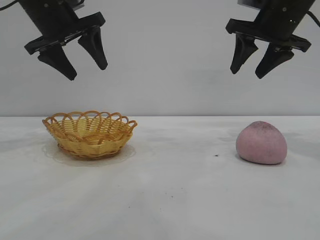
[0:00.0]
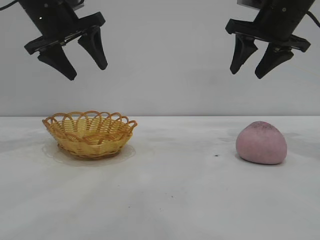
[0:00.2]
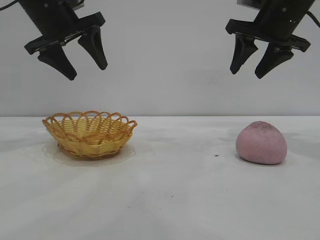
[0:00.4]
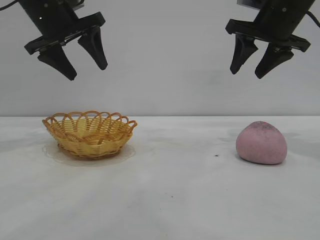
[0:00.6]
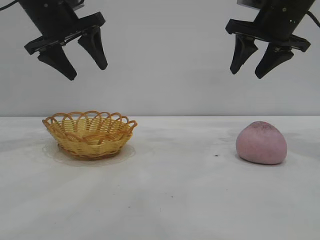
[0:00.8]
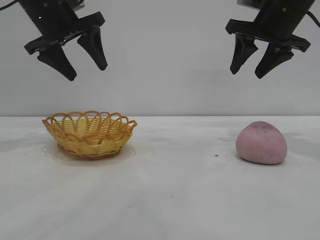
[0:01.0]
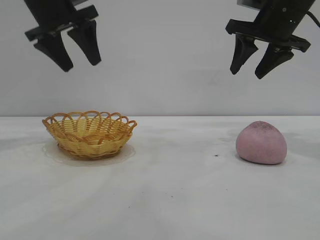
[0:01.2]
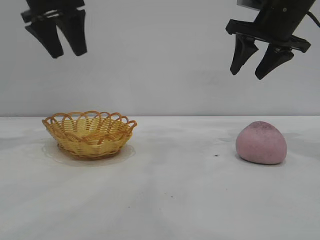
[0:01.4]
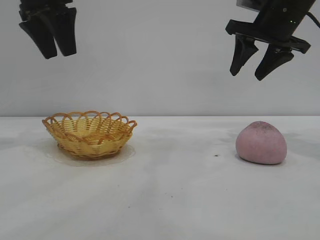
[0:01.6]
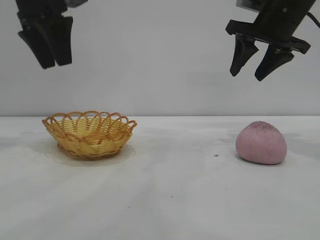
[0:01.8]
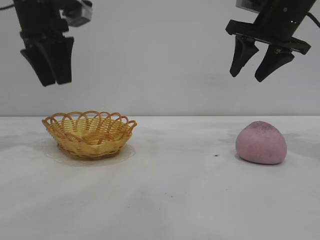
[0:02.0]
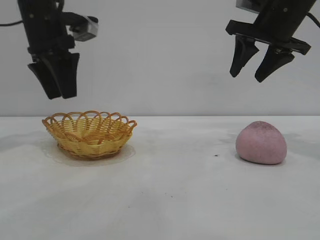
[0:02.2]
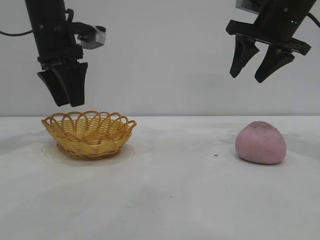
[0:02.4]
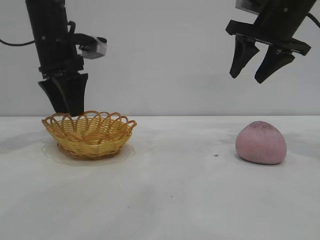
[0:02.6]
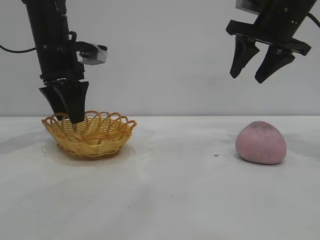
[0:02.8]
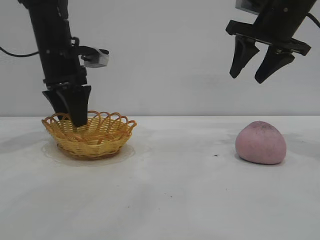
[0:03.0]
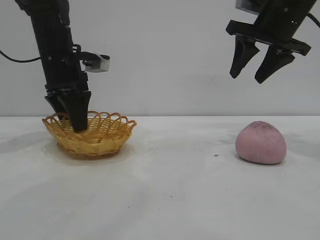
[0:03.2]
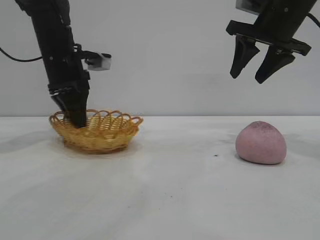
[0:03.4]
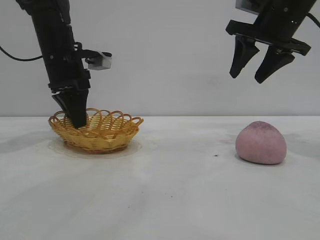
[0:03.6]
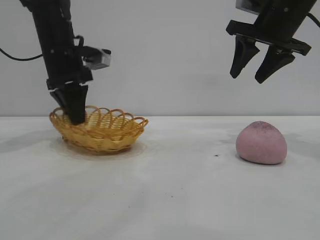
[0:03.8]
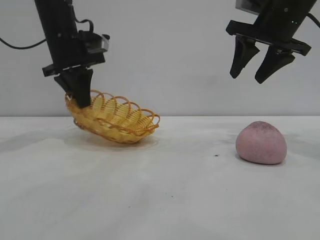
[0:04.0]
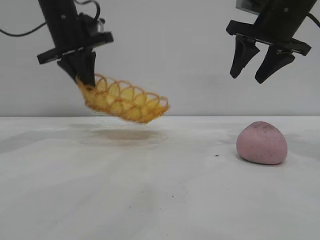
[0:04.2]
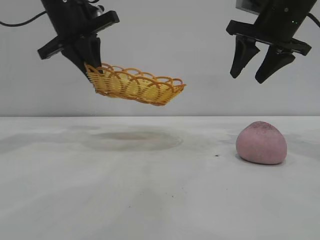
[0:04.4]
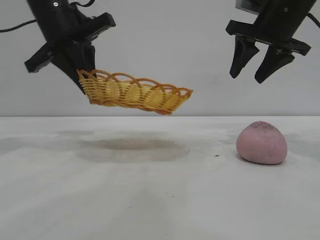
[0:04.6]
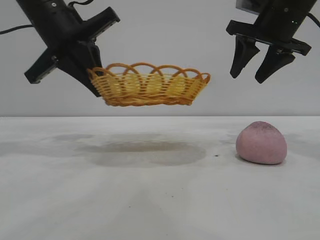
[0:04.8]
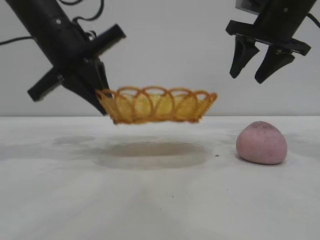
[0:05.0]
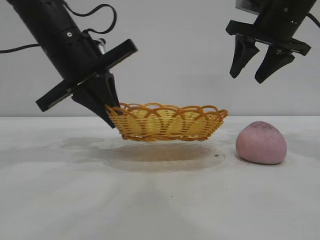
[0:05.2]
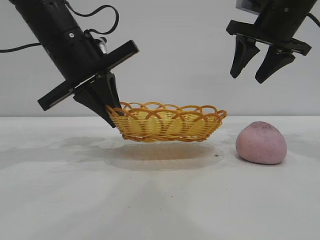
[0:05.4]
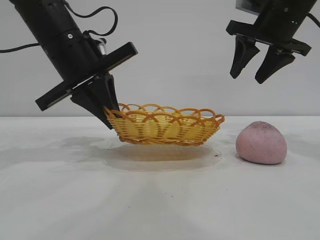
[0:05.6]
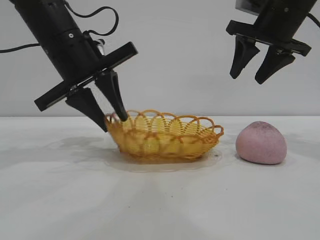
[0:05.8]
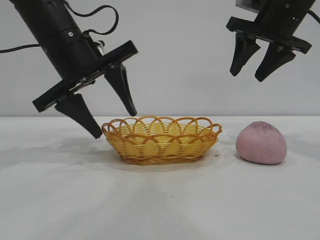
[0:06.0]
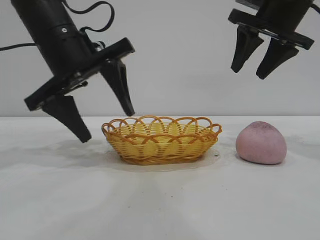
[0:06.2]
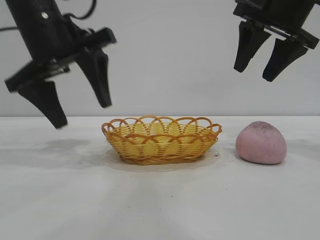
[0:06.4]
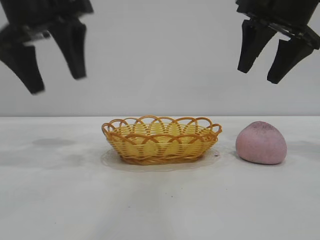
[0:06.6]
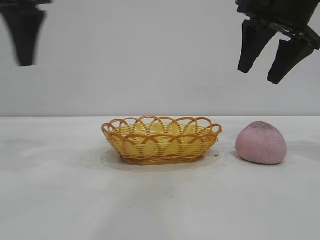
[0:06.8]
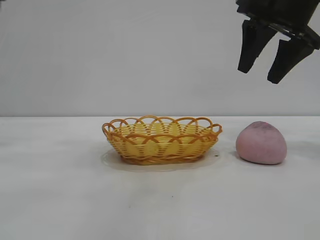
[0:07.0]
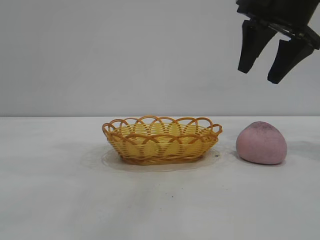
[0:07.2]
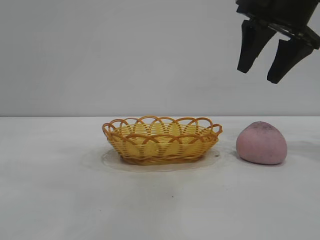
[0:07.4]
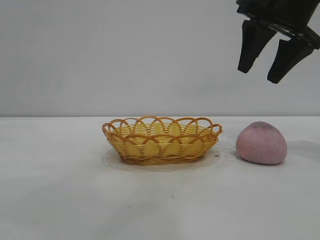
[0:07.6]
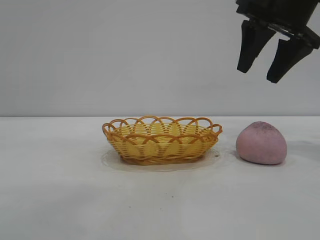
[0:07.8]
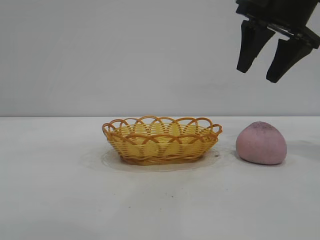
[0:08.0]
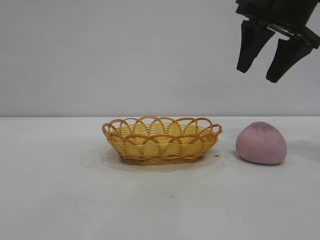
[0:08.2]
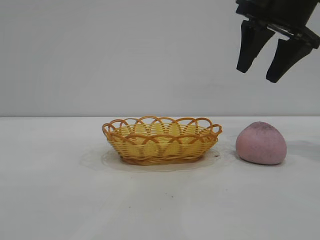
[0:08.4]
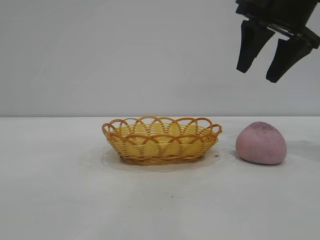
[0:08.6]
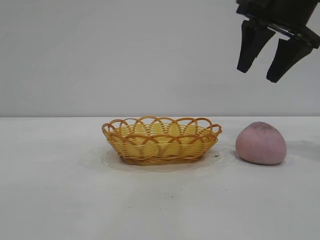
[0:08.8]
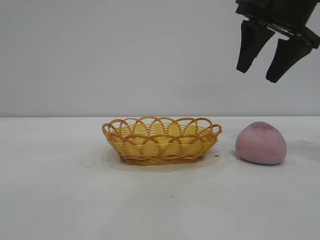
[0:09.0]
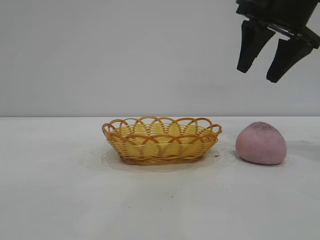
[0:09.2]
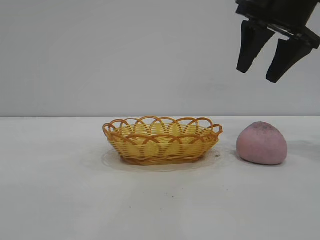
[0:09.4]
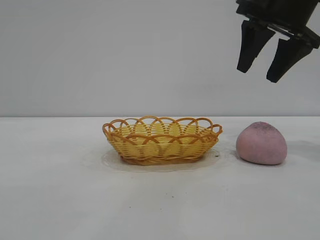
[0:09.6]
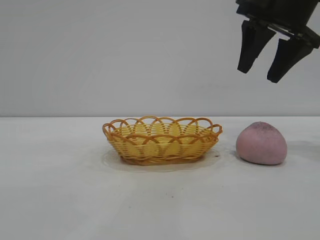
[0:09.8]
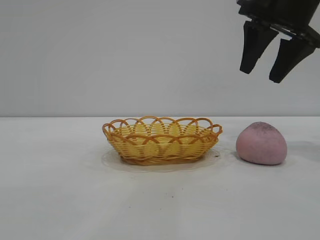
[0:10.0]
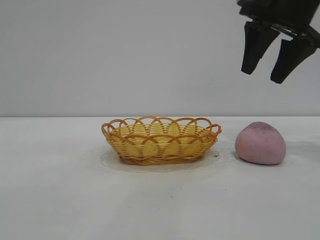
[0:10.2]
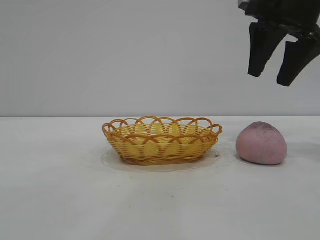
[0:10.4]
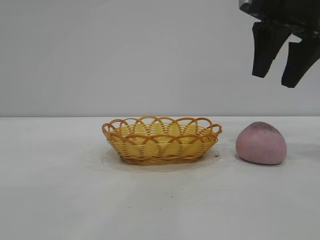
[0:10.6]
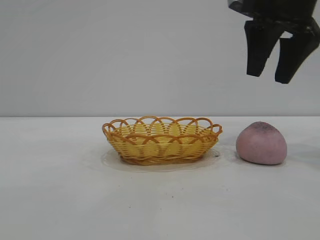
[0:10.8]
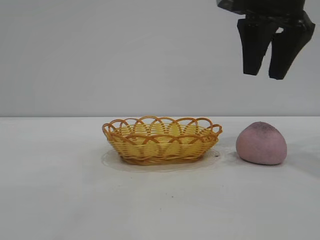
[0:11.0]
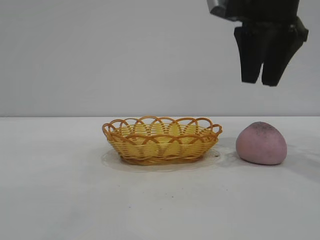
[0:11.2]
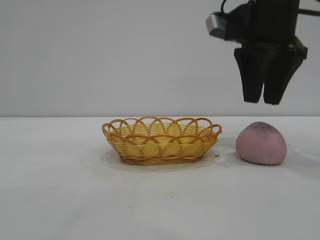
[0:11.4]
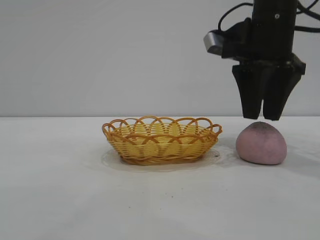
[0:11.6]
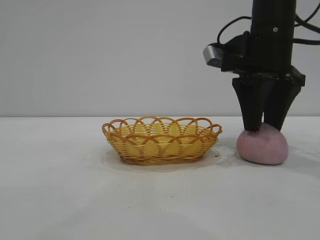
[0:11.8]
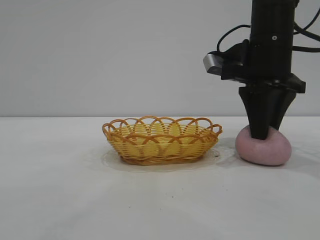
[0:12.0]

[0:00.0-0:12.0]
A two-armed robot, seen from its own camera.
Task of the whole recording: pick up the peach and put it into the basket.
Step, 0:00.0 to 0:06.6: Move the basket to the center of view.

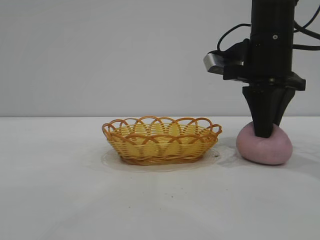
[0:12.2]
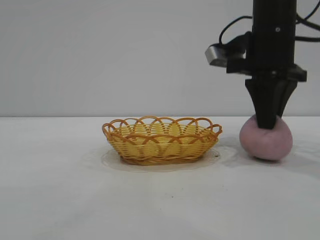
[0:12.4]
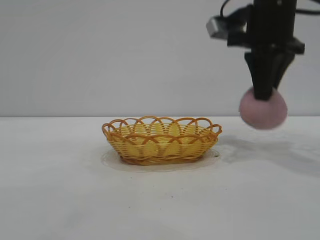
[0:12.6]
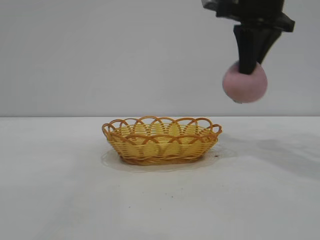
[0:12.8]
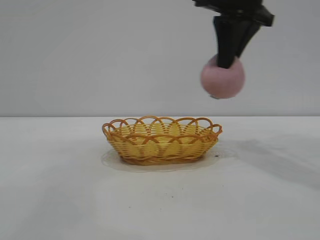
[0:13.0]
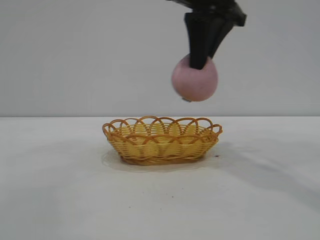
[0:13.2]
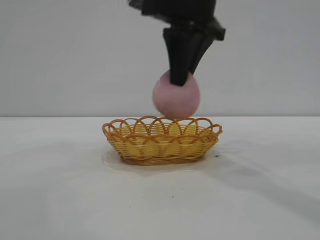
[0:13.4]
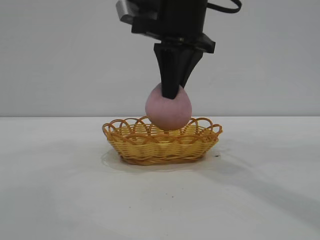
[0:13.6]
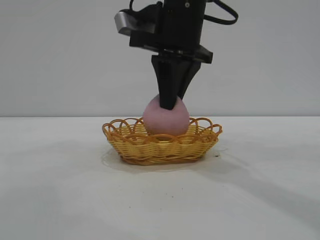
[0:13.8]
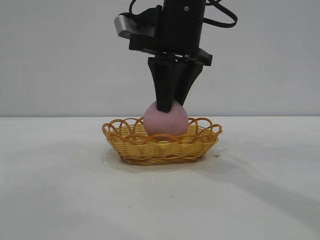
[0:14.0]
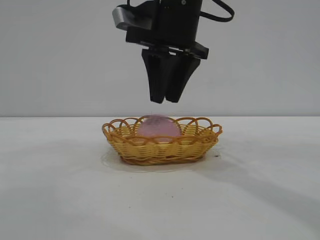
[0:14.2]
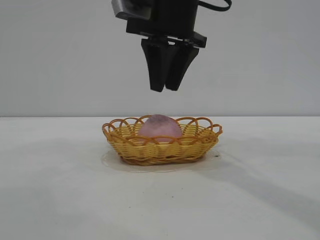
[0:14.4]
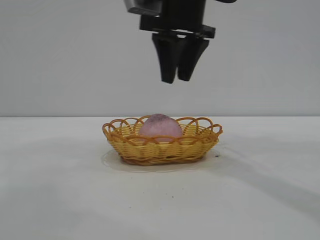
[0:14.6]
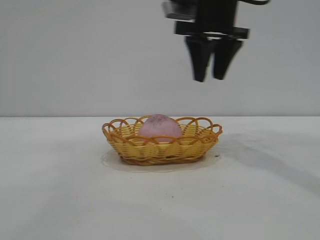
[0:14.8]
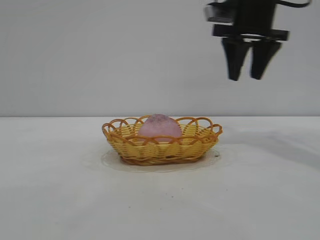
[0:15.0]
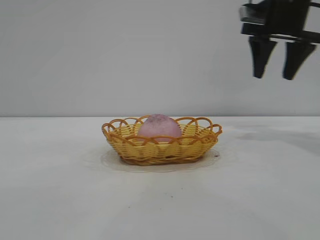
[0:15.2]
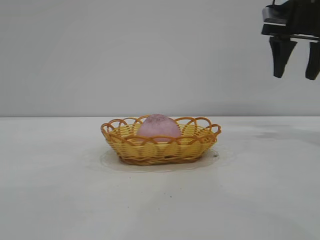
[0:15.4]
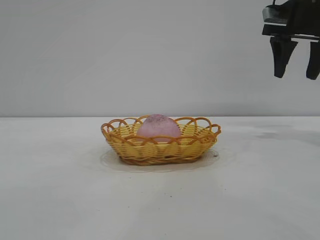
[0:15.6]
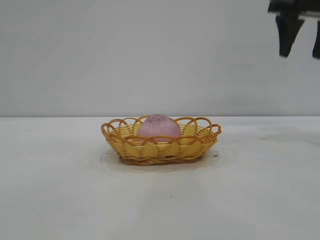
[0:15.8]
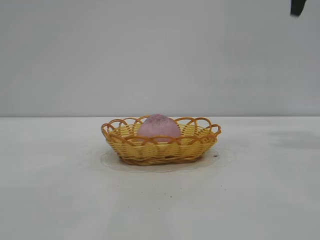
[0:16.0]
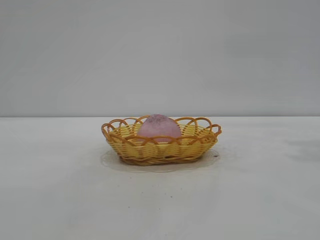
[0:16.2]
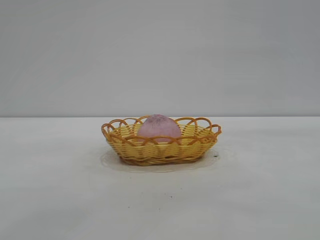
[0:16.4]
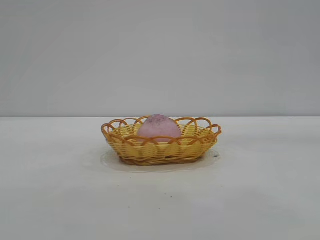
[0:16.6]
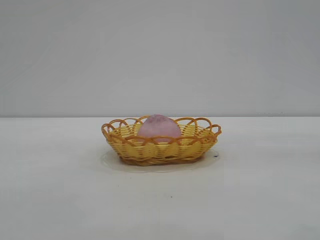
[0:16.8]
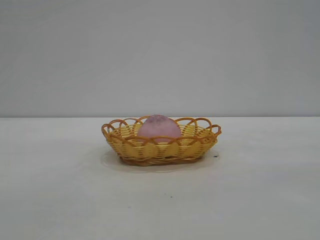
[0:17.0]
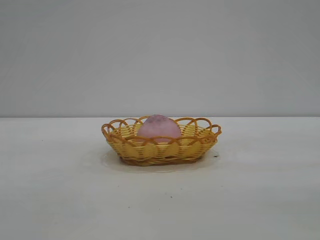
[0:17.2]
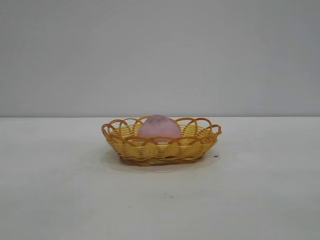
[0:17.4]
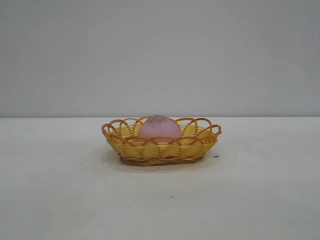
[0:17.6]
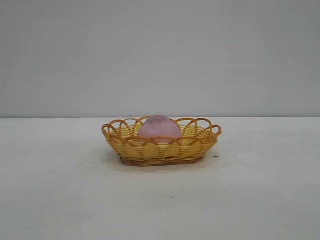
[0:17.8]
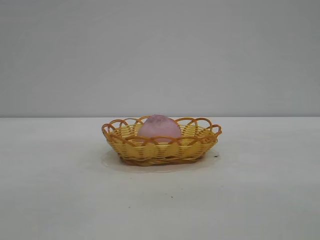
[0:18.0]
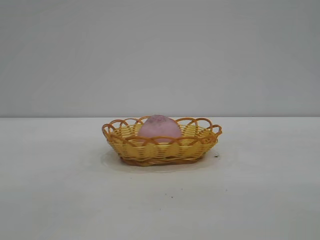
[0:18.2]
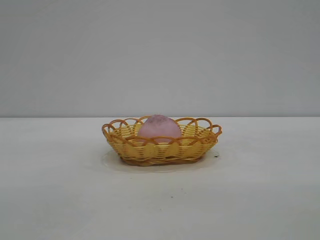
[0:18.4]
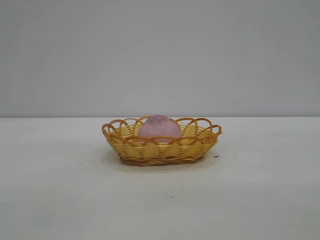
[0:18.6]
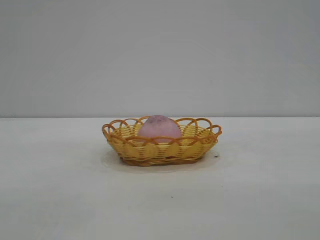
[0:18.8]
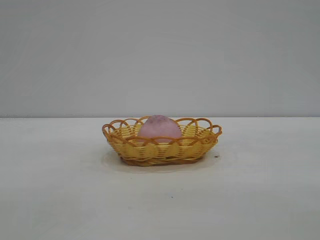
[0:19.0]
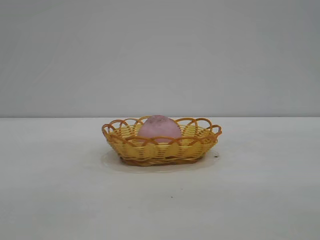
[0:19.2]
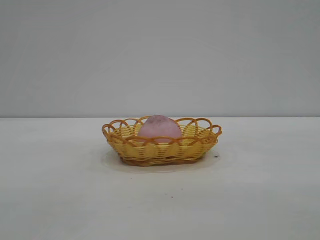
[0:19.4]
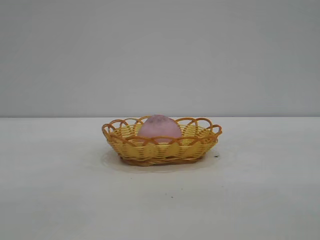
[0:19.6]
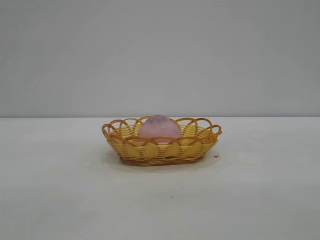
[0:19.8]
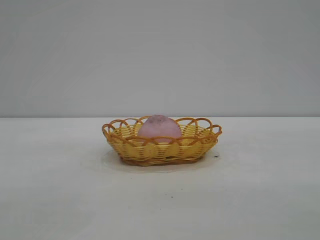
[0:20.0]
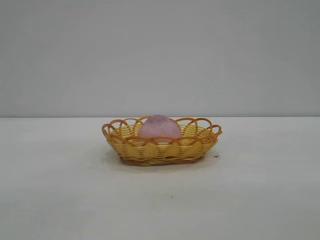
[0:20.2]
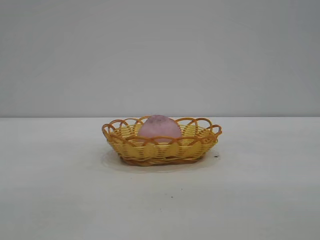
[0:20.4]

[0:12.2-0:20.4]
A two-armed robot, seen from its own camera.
Task of the whole recording: pick up the peach and put it into the basket.
Step, 0:12.8 to 0:14.6: place the peach into the basket.

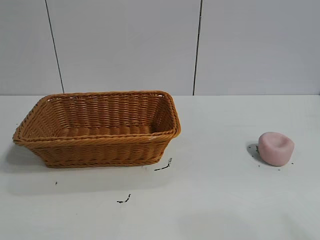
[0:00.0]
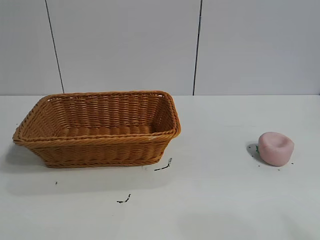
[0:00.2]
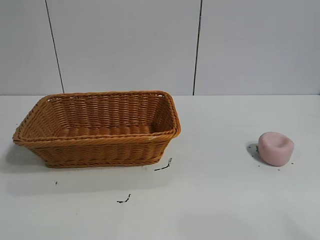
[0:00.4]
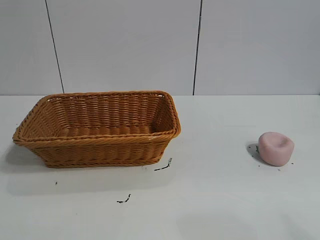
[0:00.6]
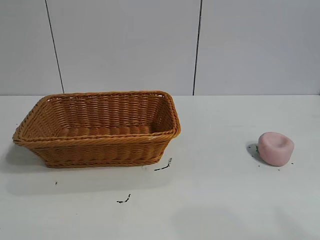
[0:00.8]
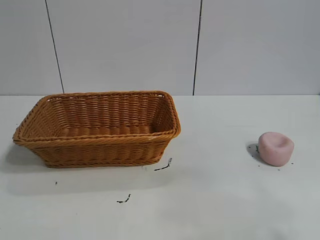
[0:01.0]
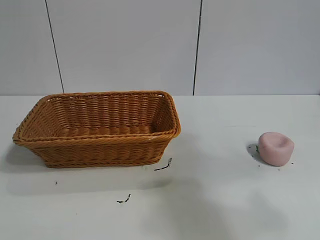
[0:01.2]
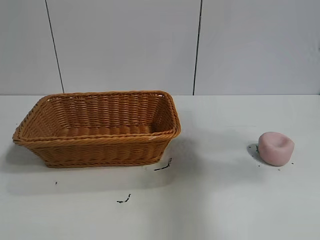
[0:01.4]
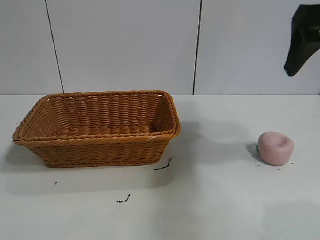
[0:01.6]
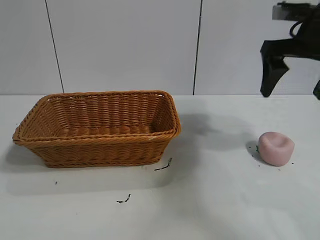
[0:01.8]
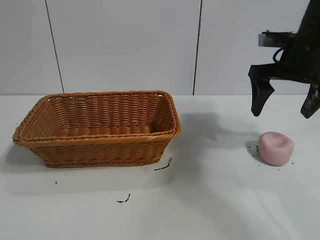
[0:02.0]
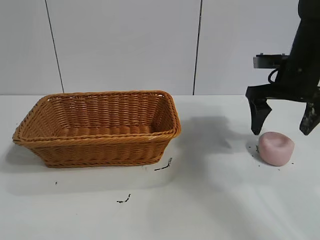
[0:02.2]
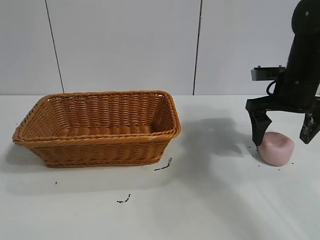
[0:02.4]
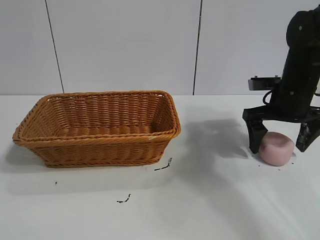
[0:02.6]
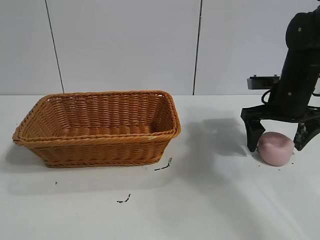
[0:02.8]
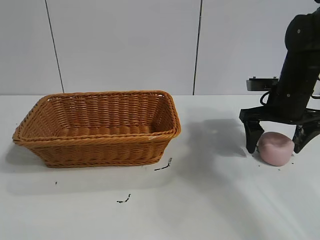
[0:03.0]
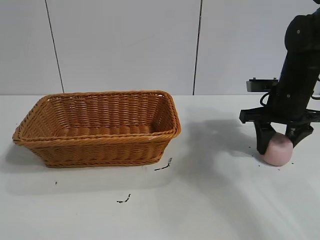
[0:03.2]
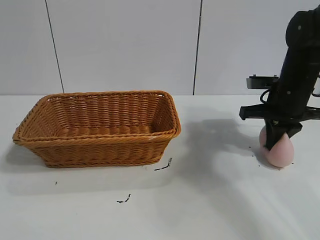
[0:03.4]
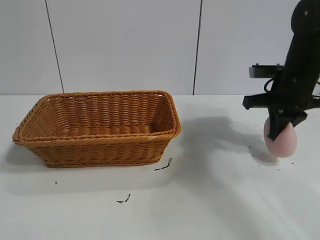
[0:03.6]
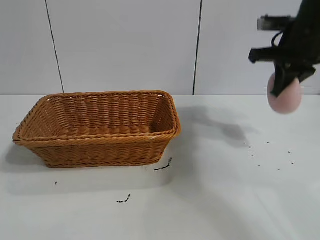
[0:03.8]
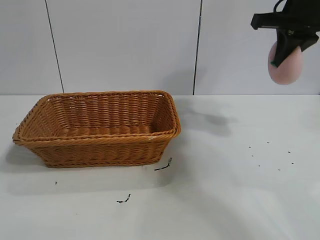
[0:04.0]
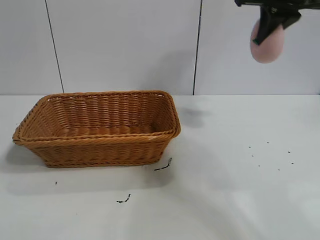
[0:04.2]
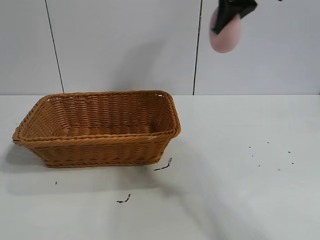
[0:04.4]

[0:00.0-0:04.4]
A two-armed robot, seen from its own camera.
Task of the whole recording: pick up the peach and put it into the basket.
Step, 0:00.8 to 0:03.4: Grasp the peach with right gripper.
